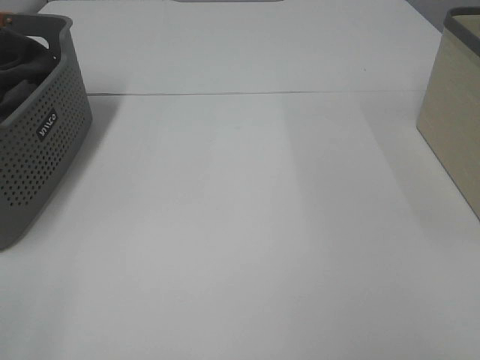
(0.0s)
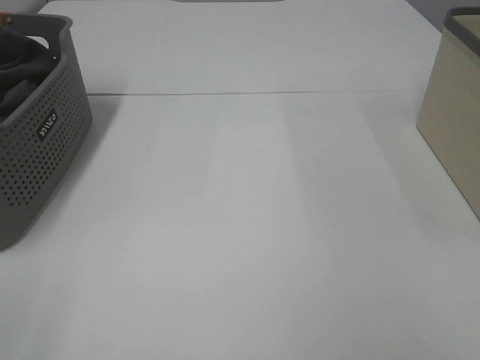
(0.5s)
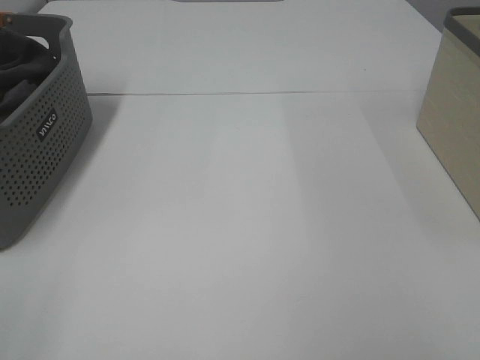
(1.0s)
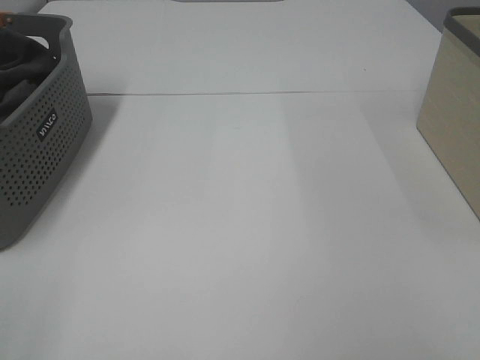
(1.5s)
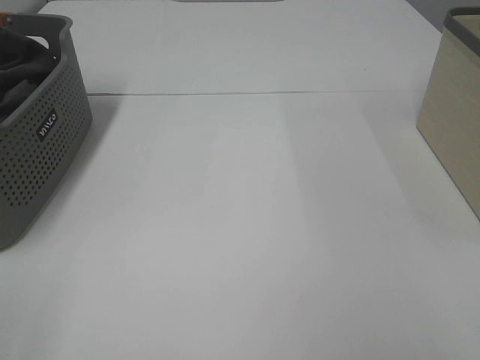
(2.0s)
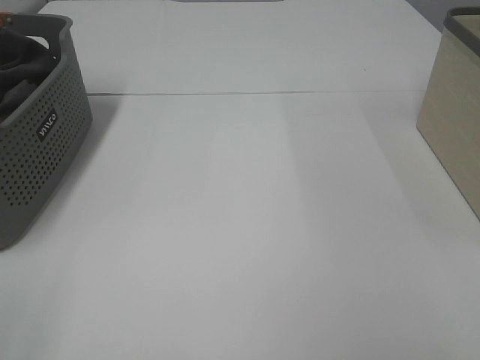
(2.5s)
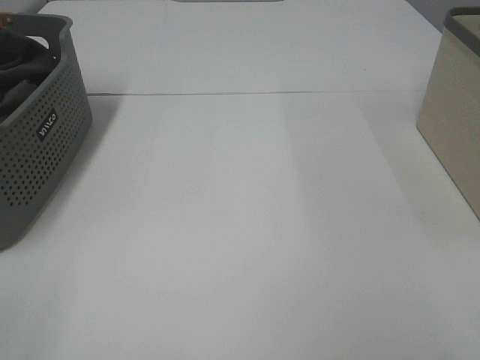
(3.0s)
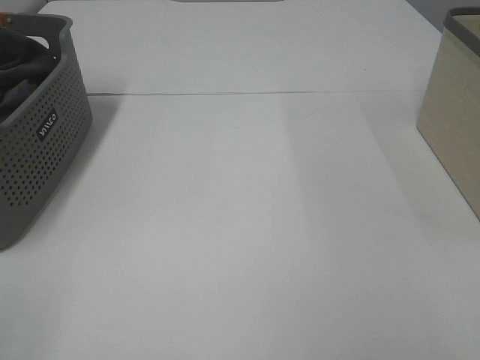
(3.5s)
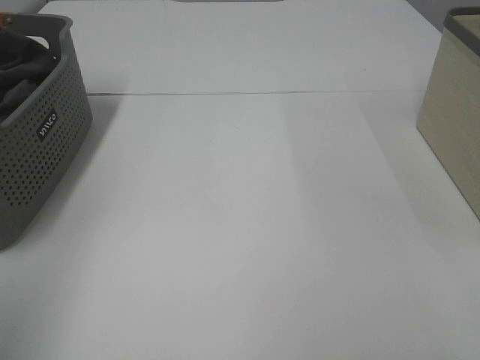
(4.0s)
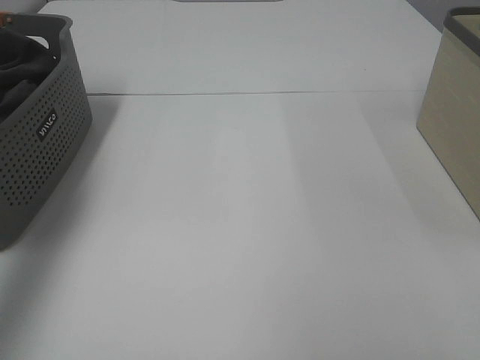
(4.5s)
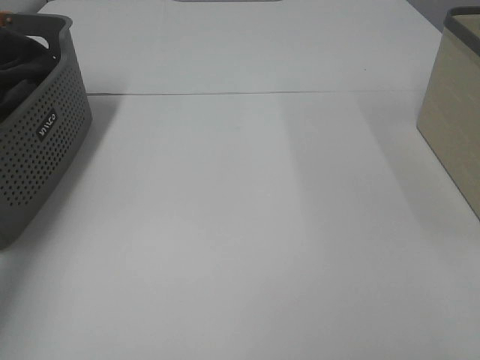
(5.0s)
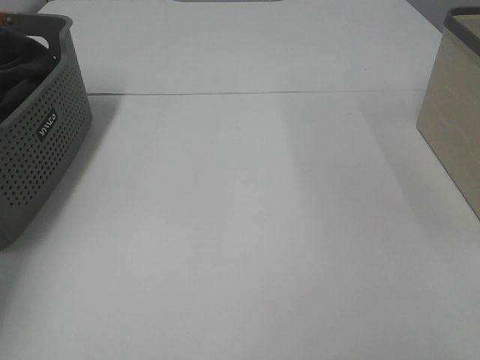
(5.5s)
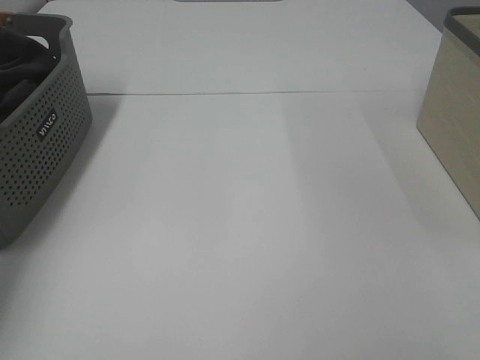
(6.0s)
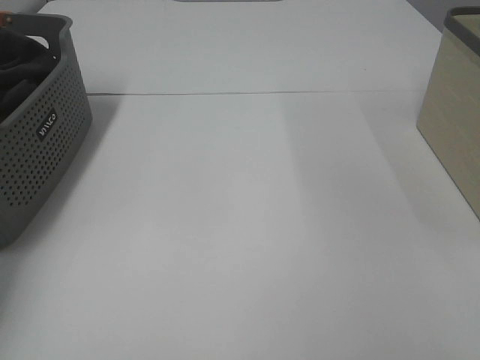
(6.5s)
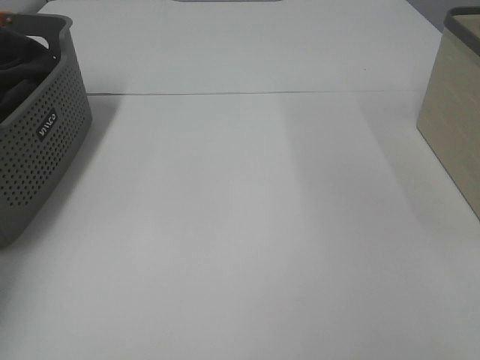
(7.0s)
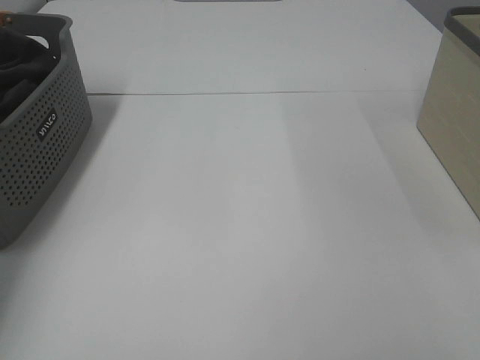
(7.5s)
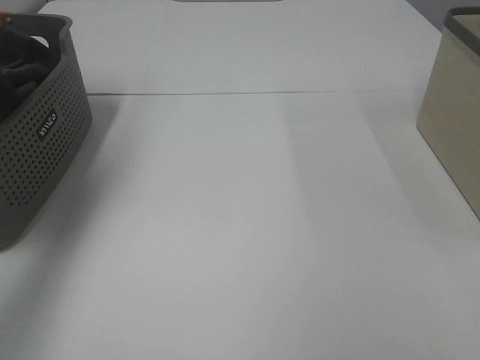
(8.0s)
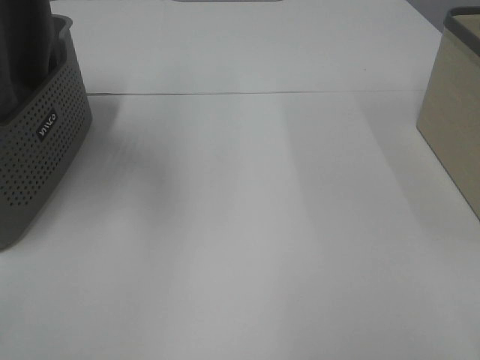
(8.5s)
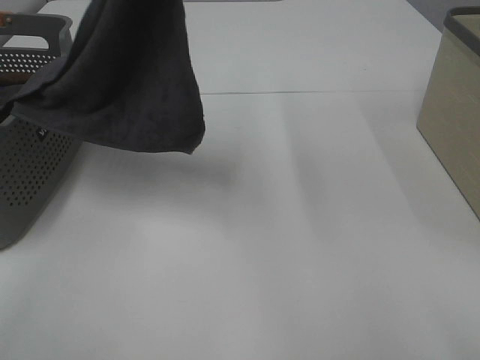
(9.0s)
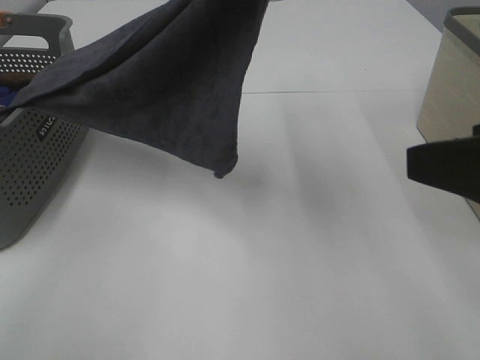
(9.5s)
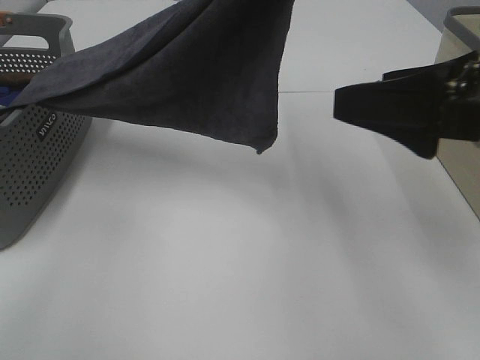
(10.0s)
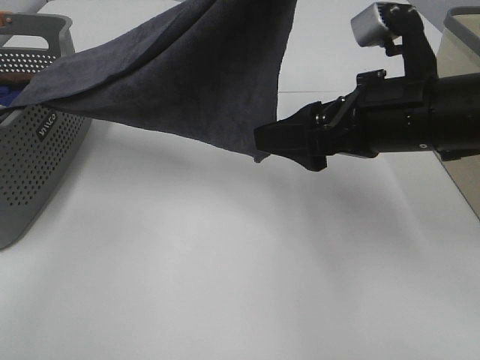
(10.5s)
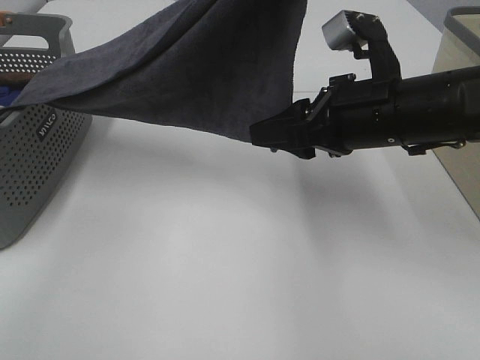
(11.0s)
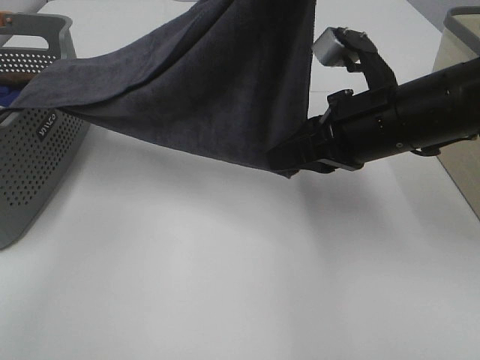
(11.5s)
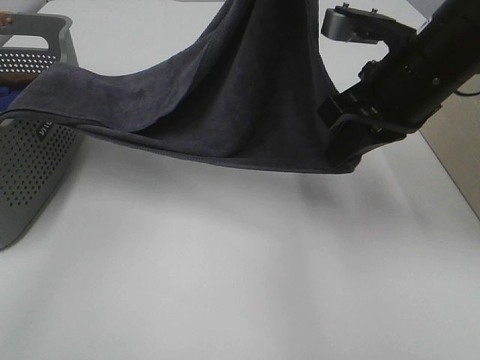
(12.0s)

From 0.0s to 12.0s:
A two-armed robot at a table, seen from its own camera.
Task of the whole recording: Remove the towel and place it.
From 0.0s to 2.0s: Neither gripper changes place.
From 2.0s to 4.0s: The left gripper goes some 15 cm upward and forward.
From 4.0s to 6.0s: The left gripper travels forward and downward by approximately 40 cm, and closes its fingers.
From 6.0s to 8.0s: The left gripper heads upward, to the right and backward, covering about 20 cm, and closes up.
From 8.0s to 10.0s: The left gripper heads to the right, covering roughly 30 cm; the right gripper moves forward, some 20 cm.
From 10.0s to 12.0s: The right gripper moves forward, about 10 cm, and closes.

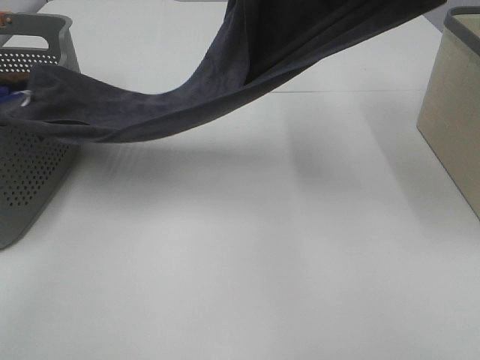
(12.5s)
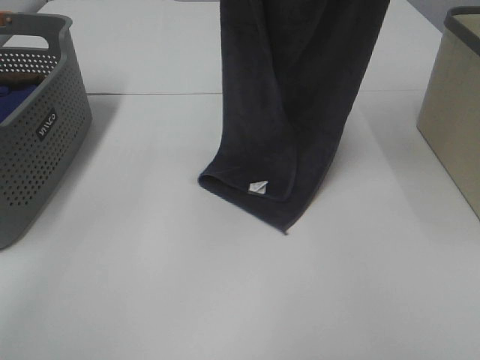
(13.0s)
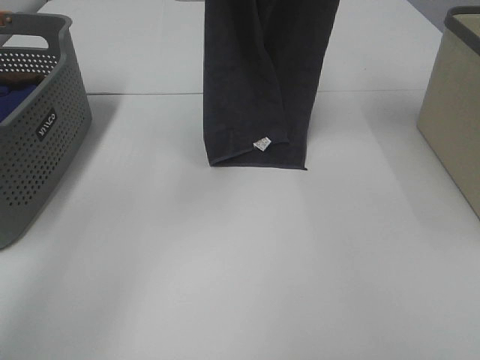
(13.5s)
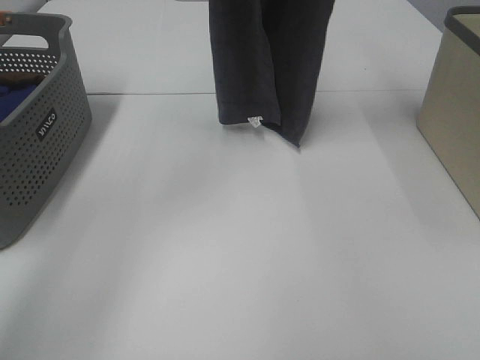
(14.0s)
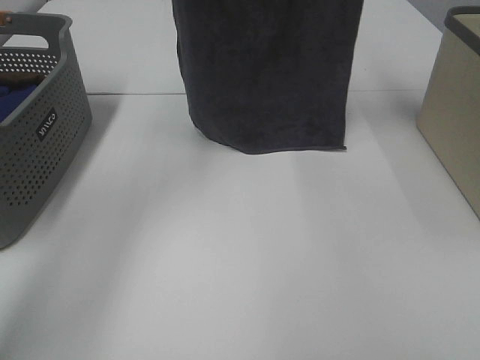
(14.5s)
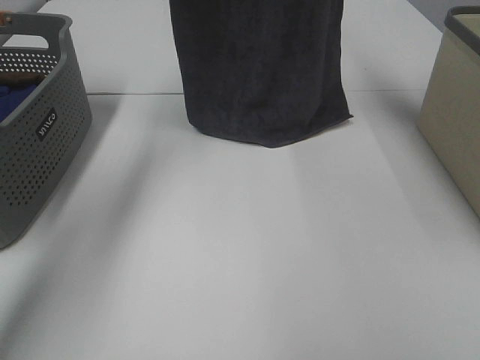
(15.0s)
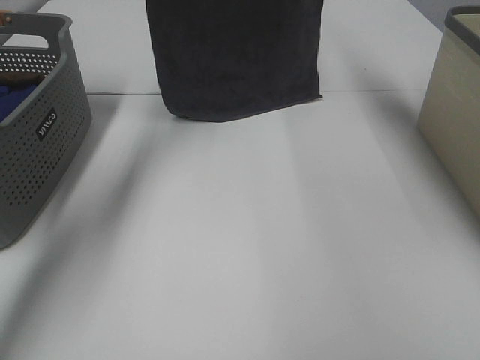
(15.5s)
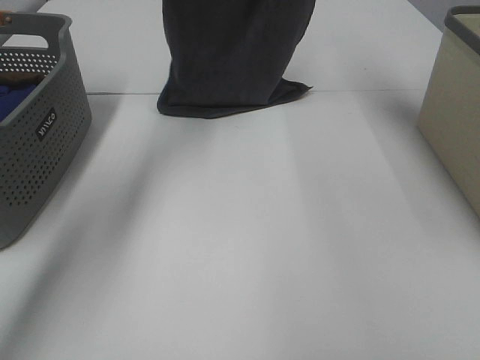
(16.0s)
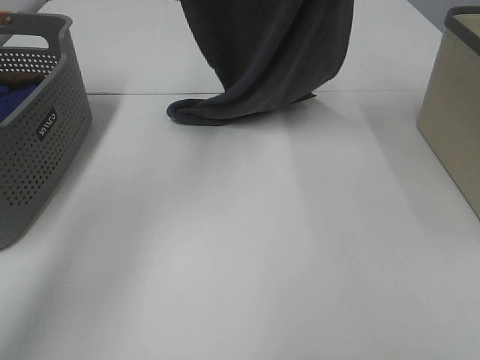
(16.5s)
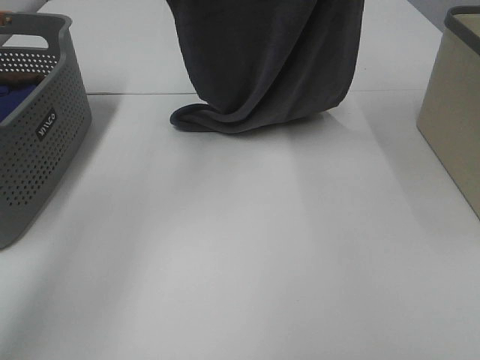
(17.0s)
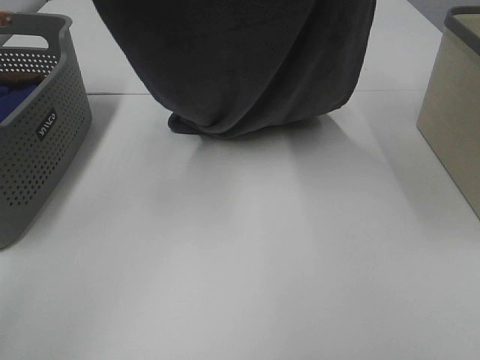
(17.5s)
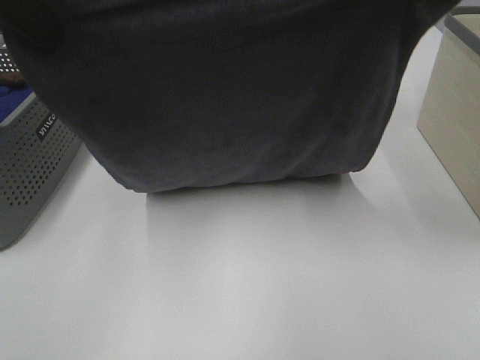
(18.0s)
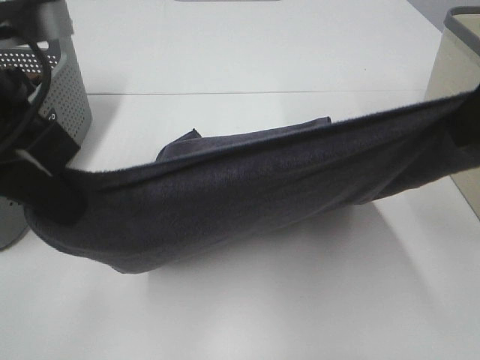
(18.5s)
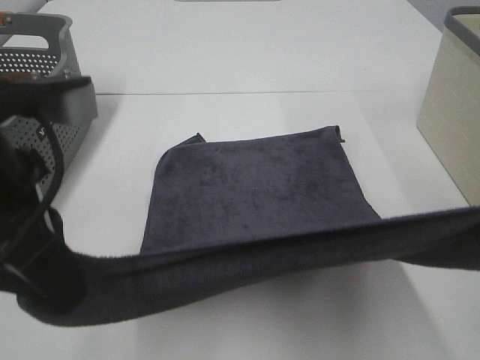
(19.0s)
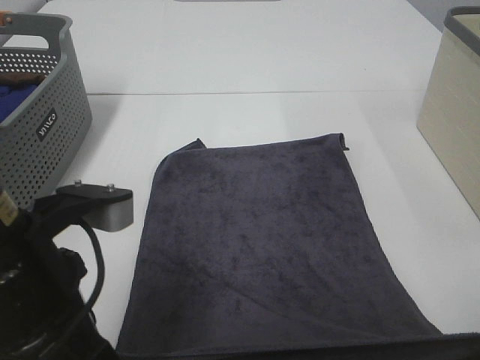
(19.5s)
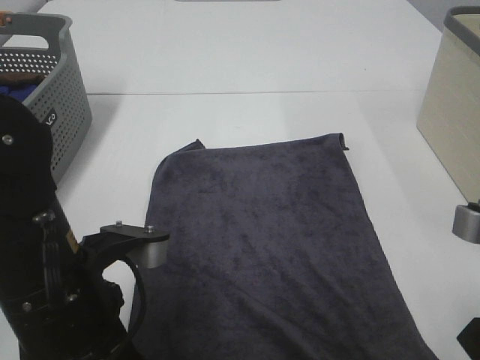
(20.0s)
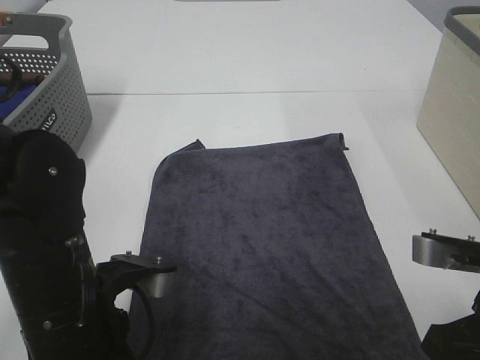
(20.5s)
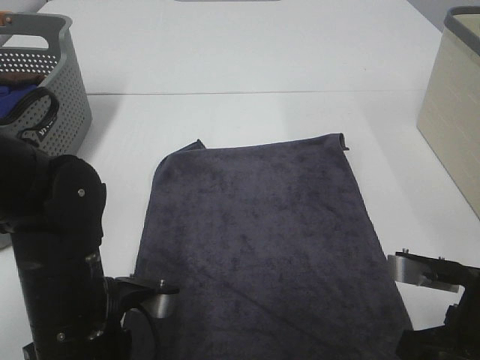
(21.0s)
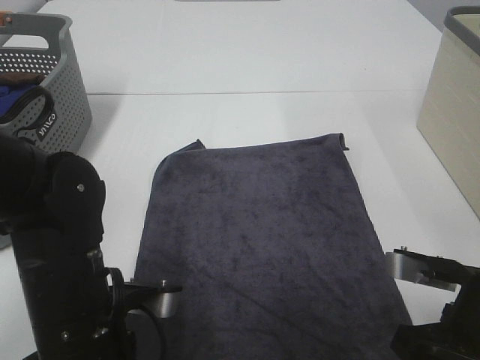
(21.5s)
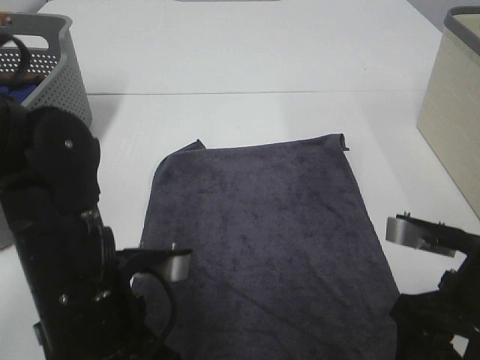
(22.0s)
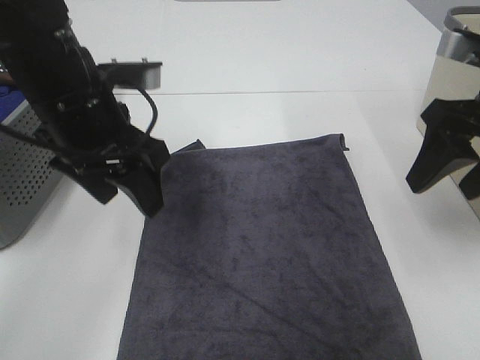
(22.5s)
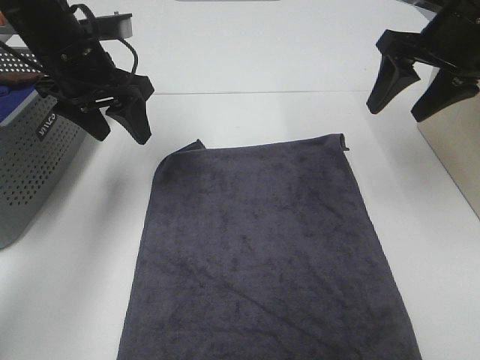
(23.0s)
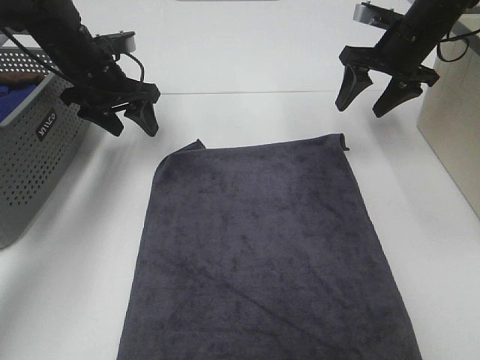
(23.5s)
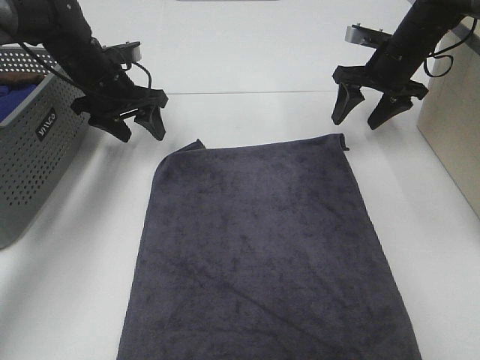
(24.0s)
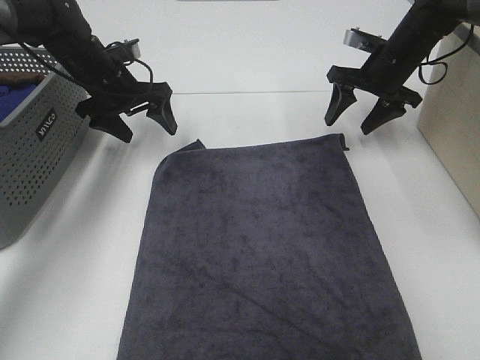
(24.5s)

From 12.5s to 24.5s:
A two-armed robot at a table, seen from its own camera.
Task of the whole recording: Remove the towel and place it.
Step, from 12.5s to 17.5s: Left hand: spread the grey towel flat on the table.
Step, from 12.5s to 17.5s: Right hand: spread the grey towel flat on the table.
Step, from 18.0s to 23.5s: Right hand:adjust the gray towel.
From 12.5s to 14.5s: The left gripper moves forward and to the left, roughly 15 cm; the right gripper travels forward and upward by approximately 15 cm.
From 14.5s to 16.5s: The left gripper moves roughly 10 cm forward and comes back, while the right gripper goes forward and returns, roughly 5 cm each way.
From 16.5s to 18.5s: The left gripper shifts roughly 25 cm backward. The right gripper moves backward and downward, some 25 cm.
From 18.5s to 20.5s: Both grippers move downward, about 20 cm.
From 20.5s to 22.5s: Both grippers travel together forward and upward, roughly 15 cm. The right gripper opens. The left gripper opens.
From 22.5s to 24.5s: The two grippers go some 25 cm forward and downward.

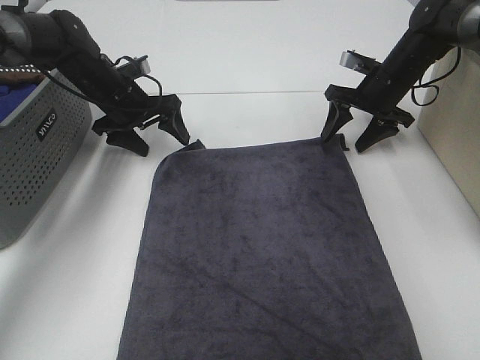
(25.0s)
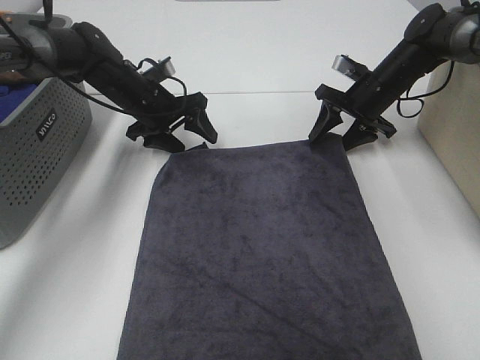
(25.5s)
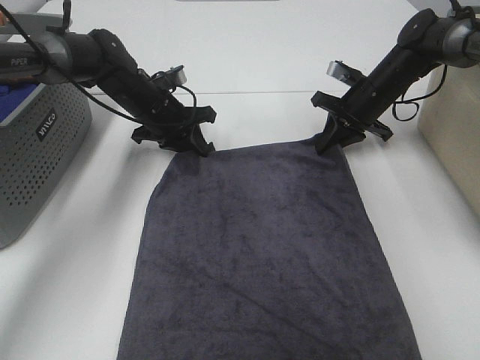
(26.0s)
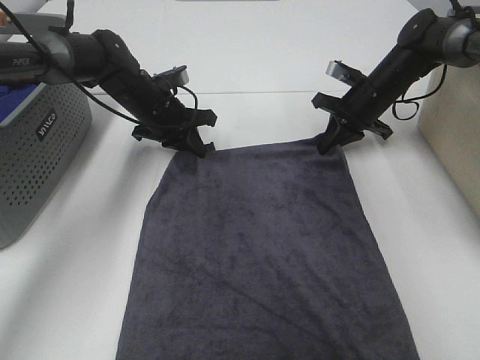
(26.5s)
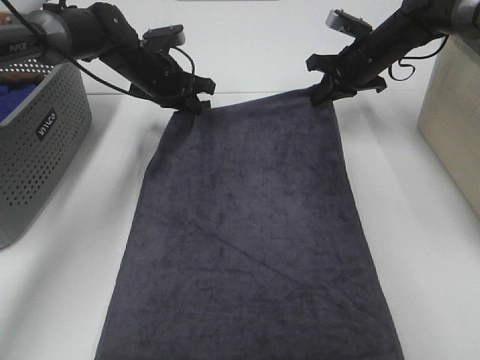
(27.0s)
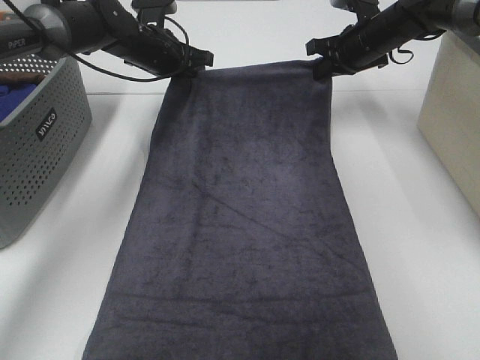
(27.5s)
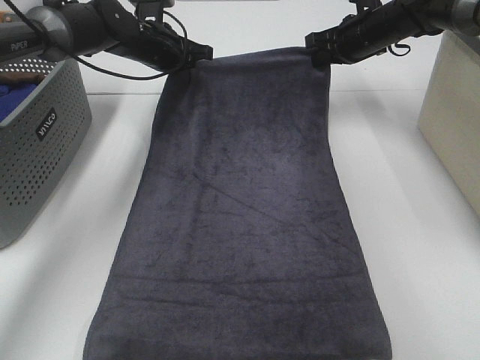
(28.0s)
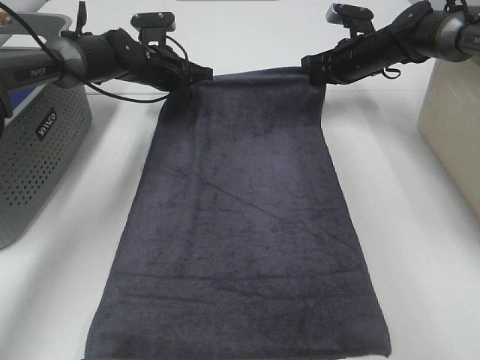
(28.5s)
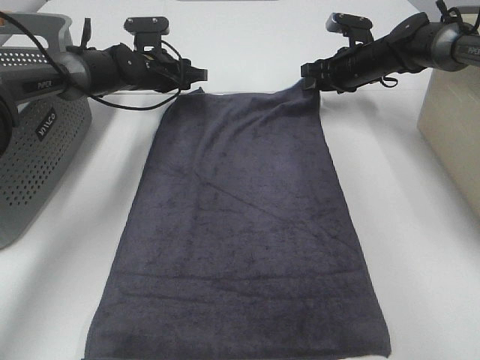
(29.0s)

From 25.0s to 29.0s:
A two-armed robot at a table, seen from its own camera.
Task of the whole recording: Remove the towel and place it.
From 25.0s to 27.0s: The left gripper shifts by about 5 cm, and closes up. The right gripper closes.
From 27.0s to 29.0s: The right gripper moves approximately 5 cm, and opens its fingers. Meanwhile the left gripper ends up about 5 cm from where it was, and opens its fingers.
